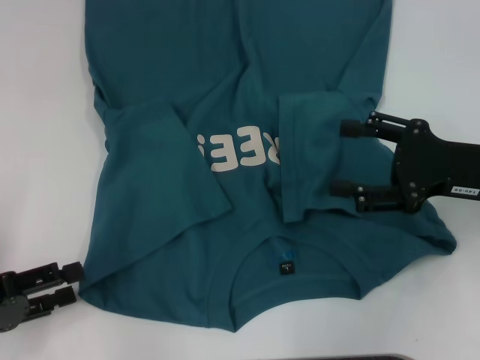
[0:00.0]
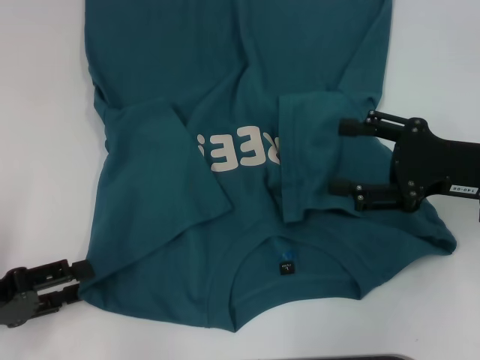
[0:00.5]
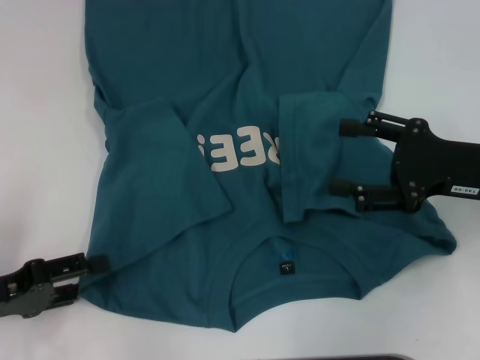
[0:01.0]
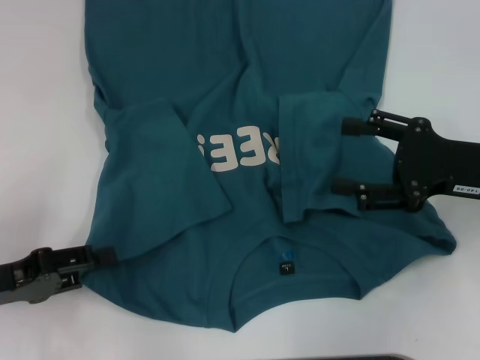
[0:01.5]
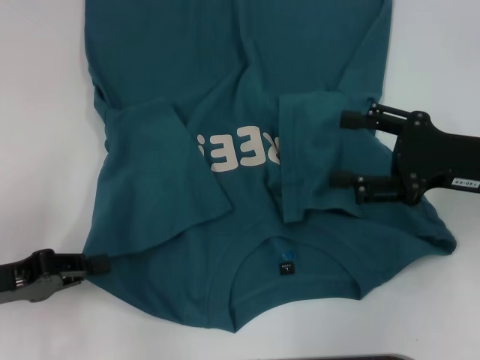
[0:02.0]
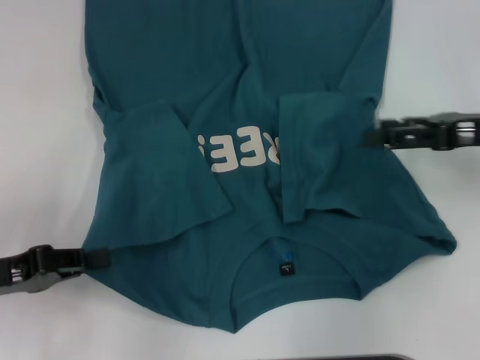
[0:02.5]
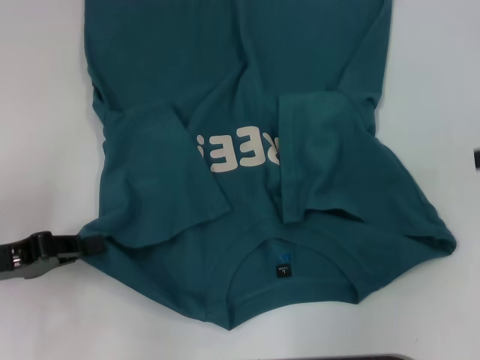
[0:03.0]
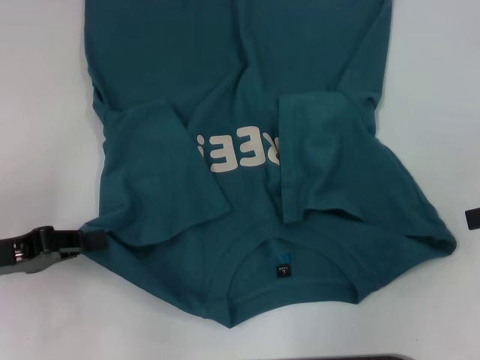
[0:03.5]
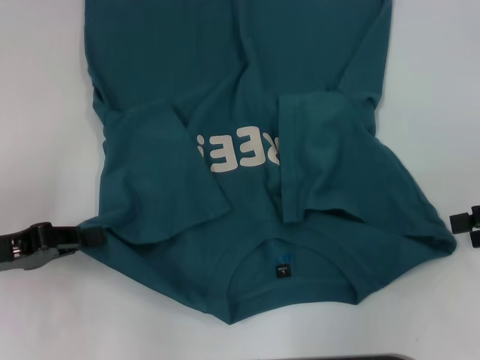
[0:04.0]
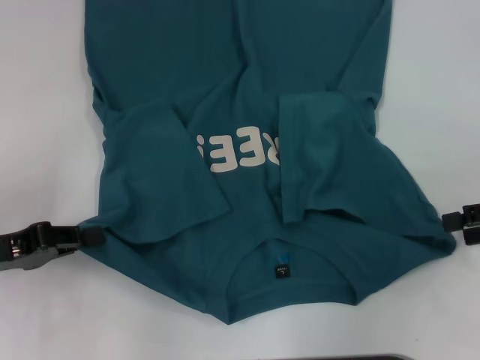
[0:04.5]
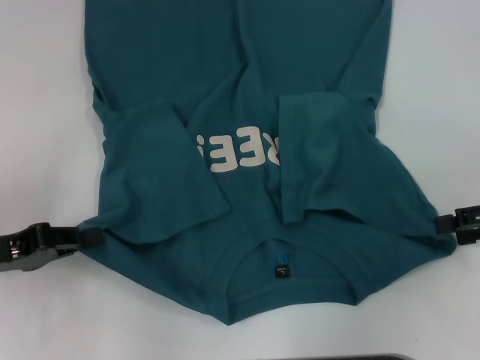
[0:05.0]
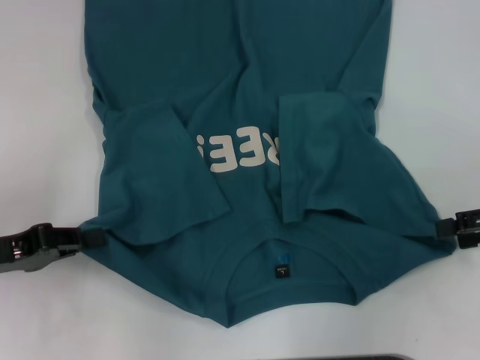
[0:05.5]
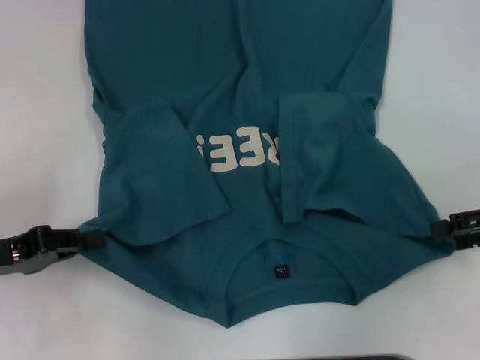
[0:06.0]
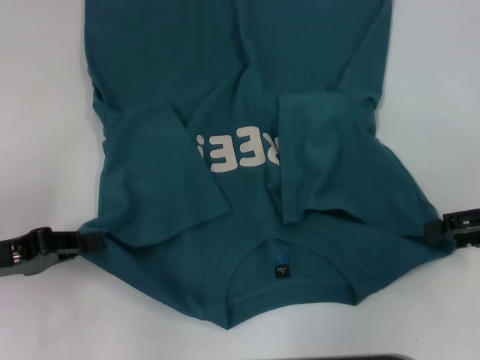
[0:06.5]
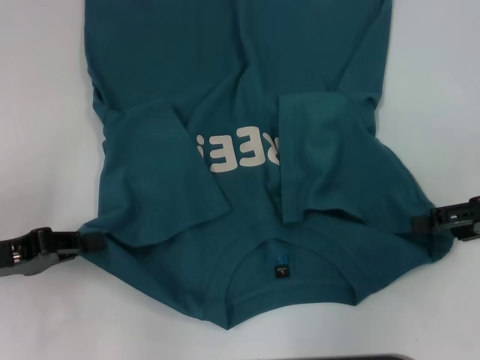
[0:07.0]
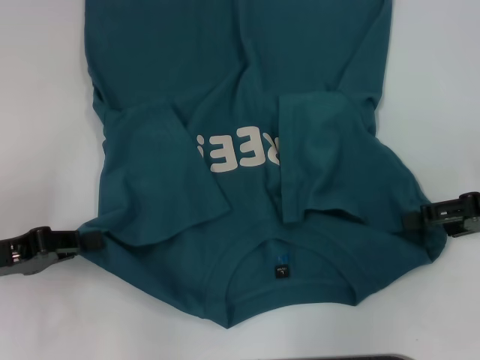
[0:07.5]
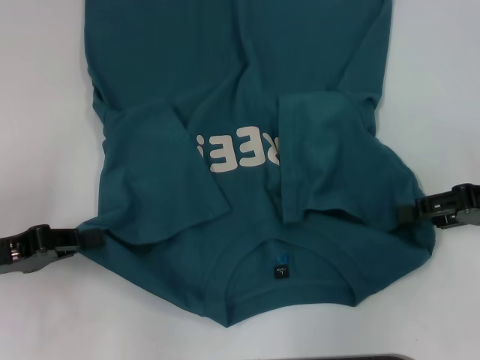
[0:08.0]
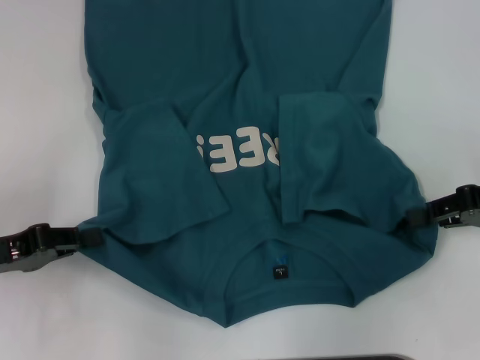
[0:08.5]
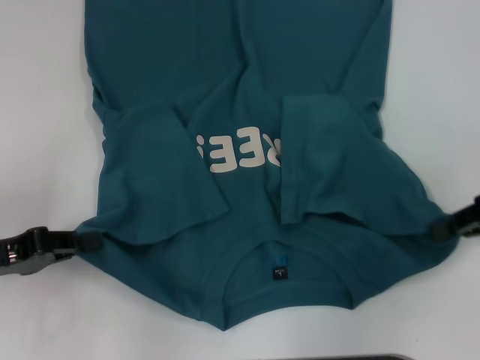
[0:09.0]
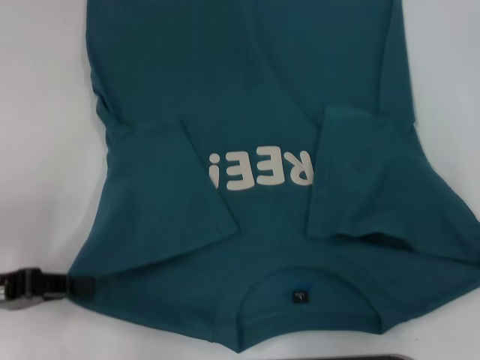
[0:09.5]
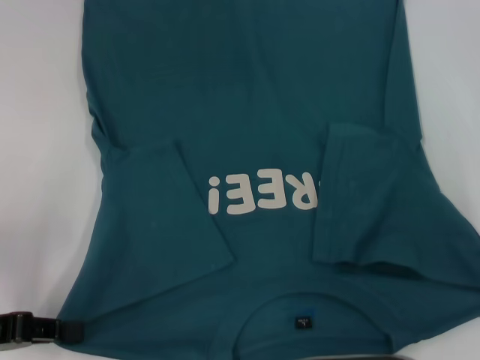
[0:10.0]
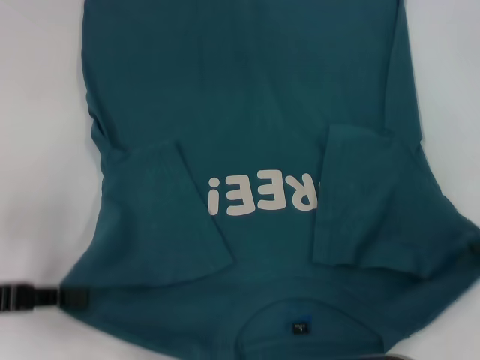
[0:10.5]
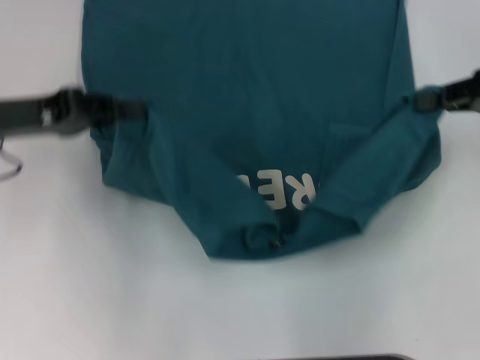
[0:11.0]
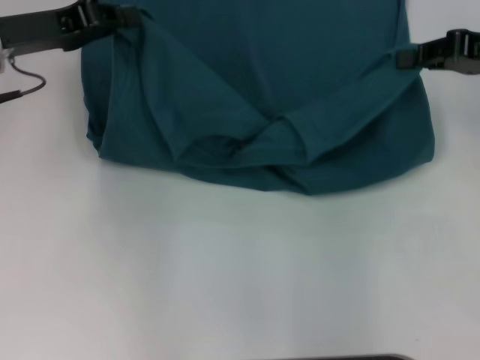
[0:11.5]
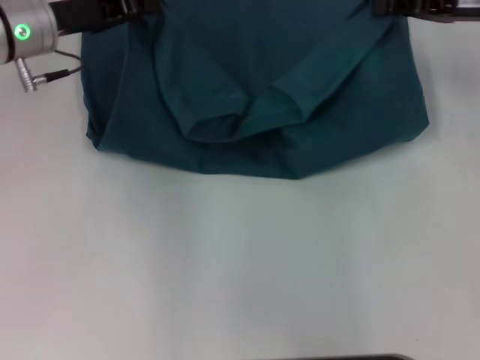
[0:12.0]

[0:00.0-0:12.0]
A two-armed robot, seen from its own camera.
Step, 0.0 to 2.0 s: Grab the bottom left corner with your left hand.
Step, 2.5 to 9.0 s: Grab the bottom right corner with your right hand.
0.0 to 2.0 s: The left gripper closes its fingers.
2.0 to 4.0 s: The right gripper goes roughly 10 cm to the right.
4.0 to 8.0 s: The grippers make only small movements.
8.0 to 10.0 s: The right gripper moves some 5 cm, and closes its fingers.
10.0 to 12.0 s: The right gripper is displaced forward and to the left by roughly 15 cm. Meanwhile the left gripper travels forward and to the right by about 25 cm.

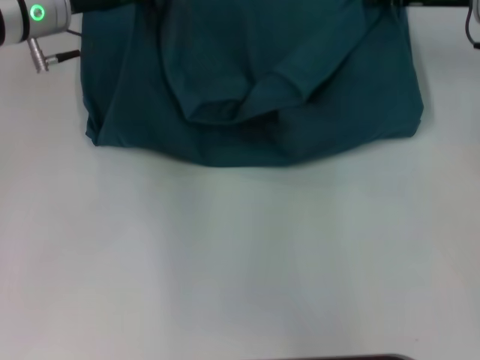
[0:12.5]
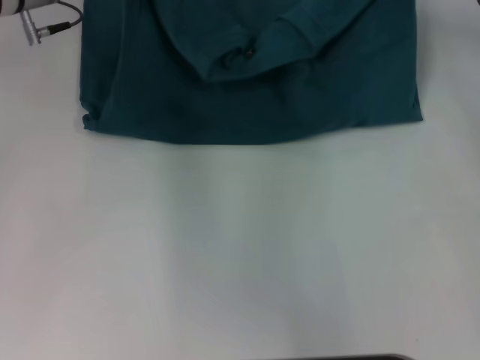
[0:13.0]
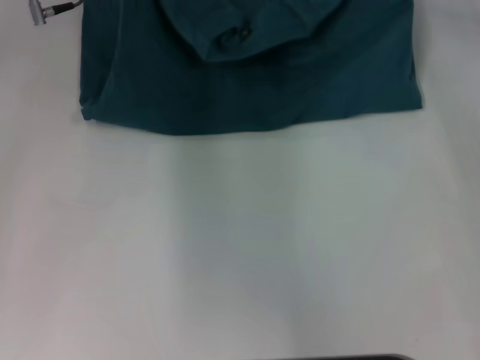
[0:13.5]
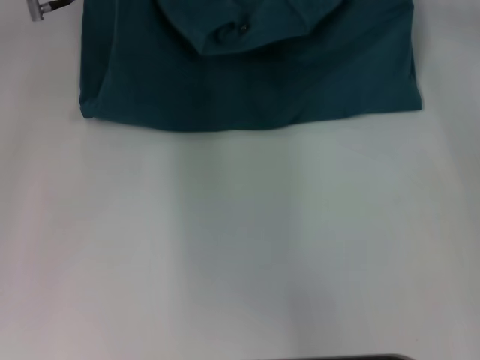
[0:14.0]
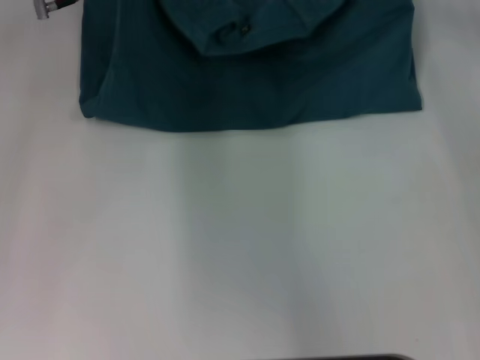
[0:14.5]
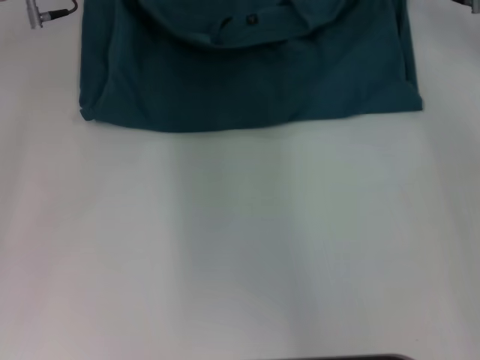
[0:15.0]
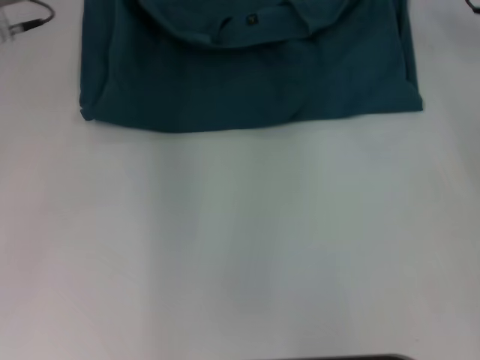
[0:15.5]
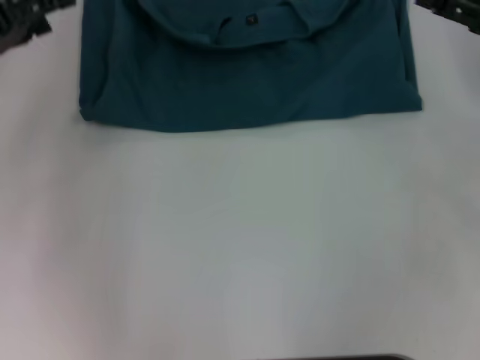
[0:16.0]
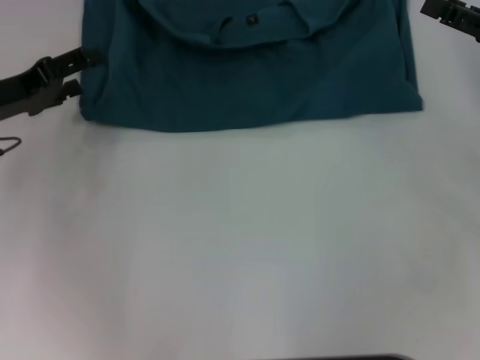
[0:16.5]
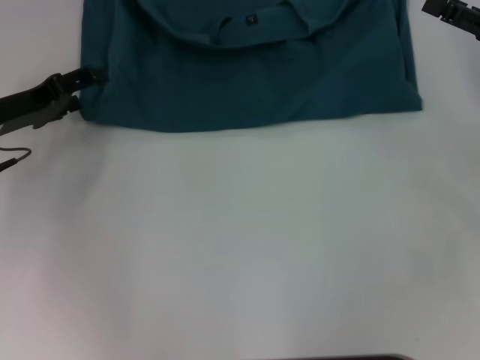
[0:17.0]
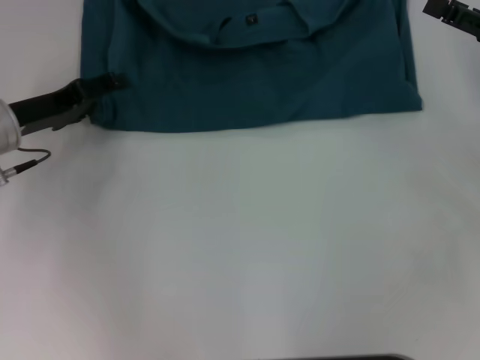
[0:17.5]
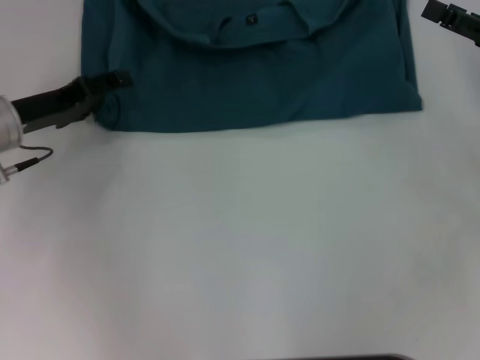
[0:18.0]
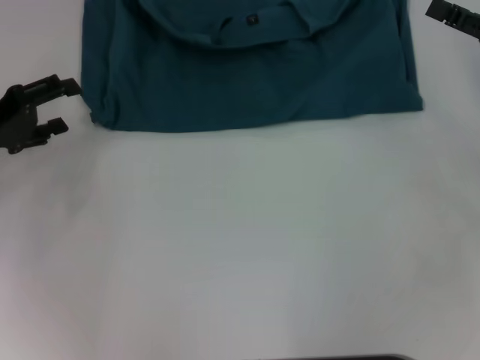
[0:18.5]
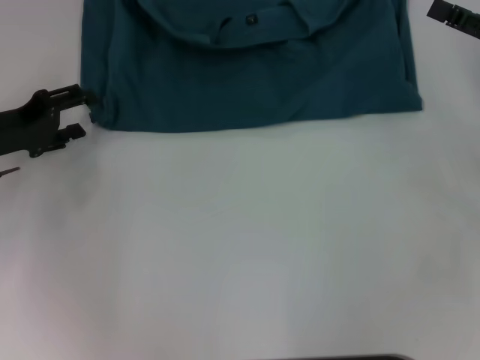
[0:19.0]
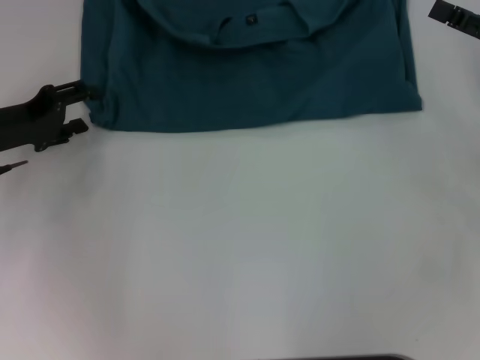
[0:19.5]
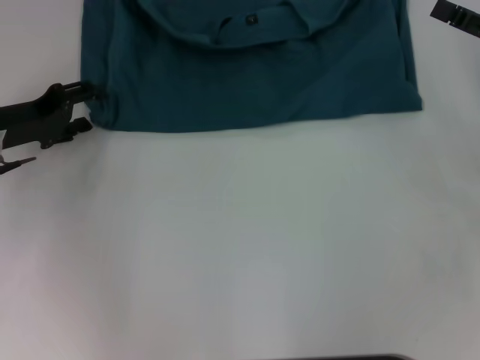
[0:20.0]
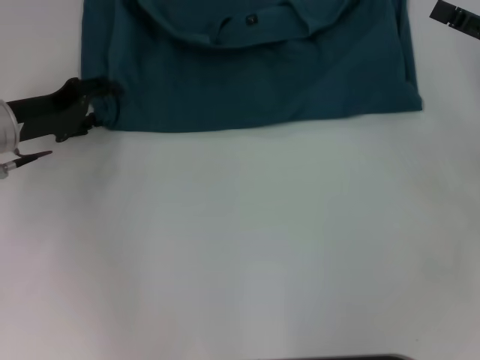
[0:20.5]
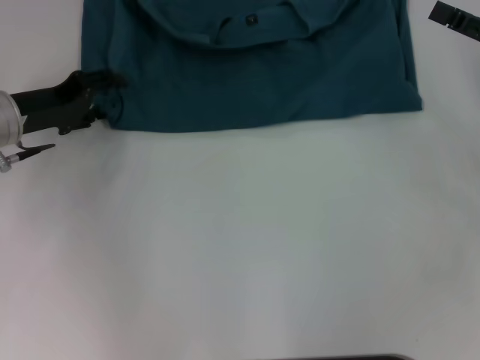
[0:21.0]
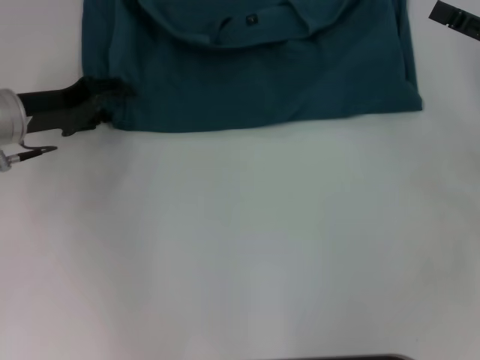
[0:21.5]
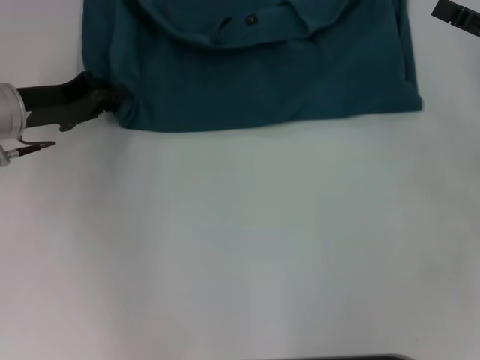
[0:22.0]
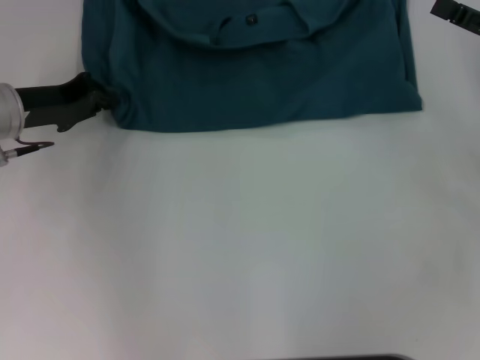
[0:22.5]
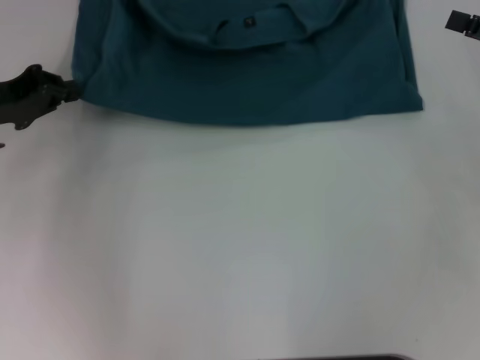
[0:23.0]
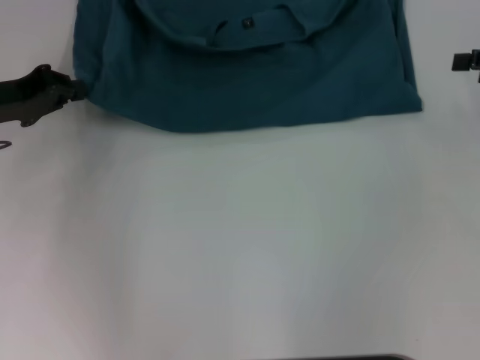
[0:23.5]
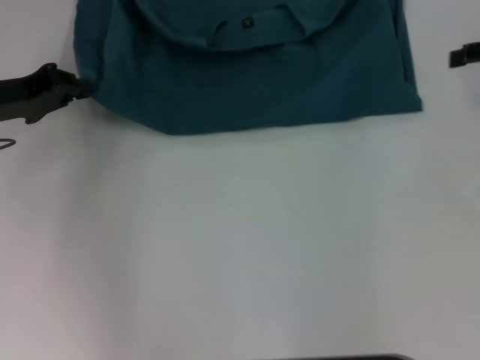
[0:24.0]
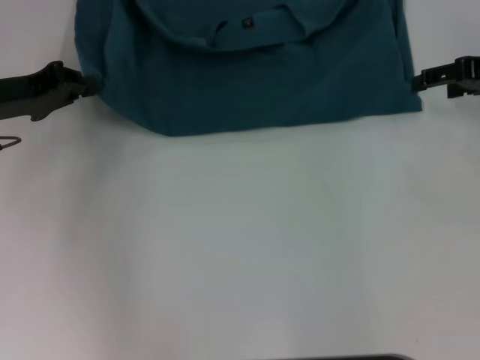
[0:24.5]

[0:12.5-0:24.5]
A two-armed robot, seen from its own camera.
Step, 12.5 to 15.5 s: Fold the clothes to the left.
Step, 12.5 to 15.5 s: Fold the clothes to the right.
14.5 to 16.5 s: The left gripper moves backward, to the left and downward, approximately 20 cm, and opens up. The right gripper moves backward and to the right, approximately 15 cm, and opens.
16.5 to 18.5 s: There are only small adjustments of the grippers.
18.5 to 20.5 s: The left gripper shifts by approximately 5 cm.
20.5 to 22.5 s: The left gripper closes its fingers.
22.5 to 24.5 s: The right gripper goes about 5 cm forward.

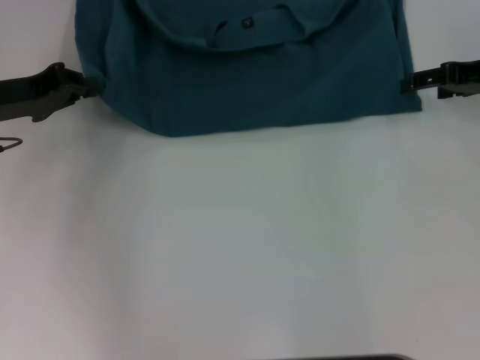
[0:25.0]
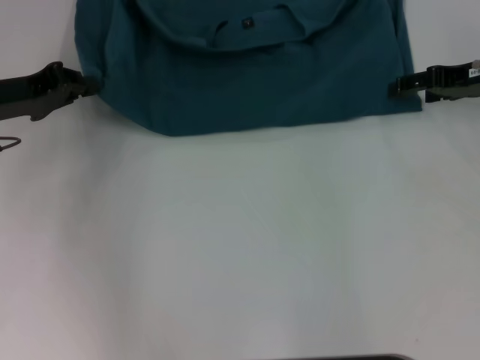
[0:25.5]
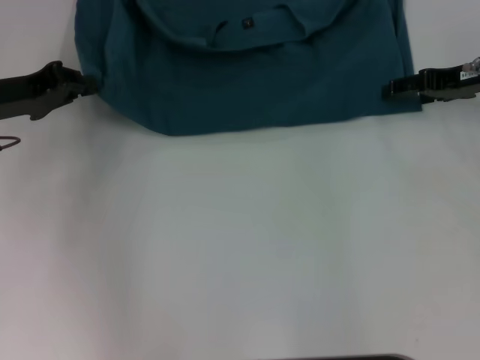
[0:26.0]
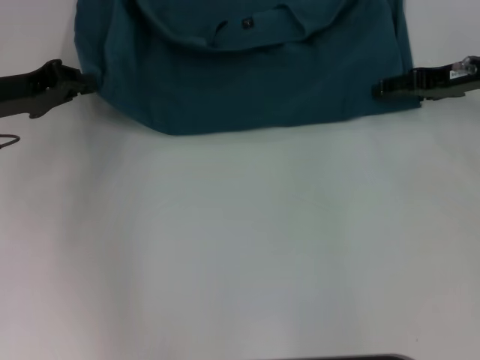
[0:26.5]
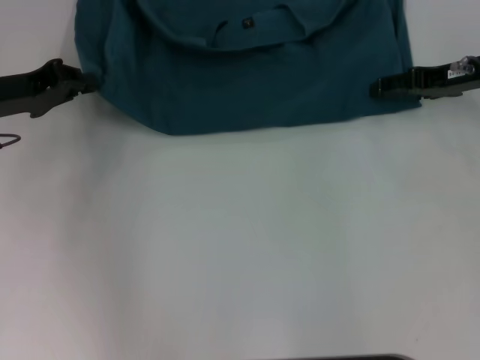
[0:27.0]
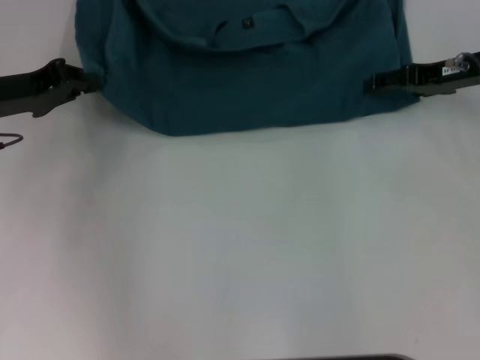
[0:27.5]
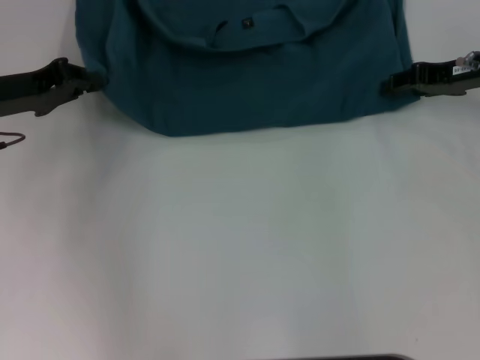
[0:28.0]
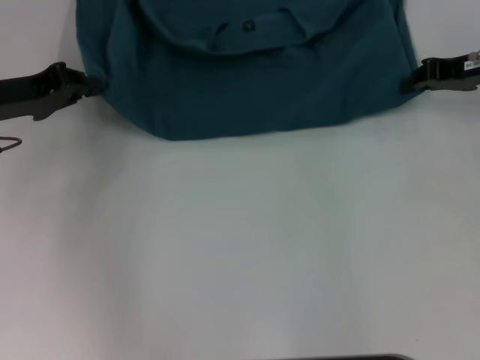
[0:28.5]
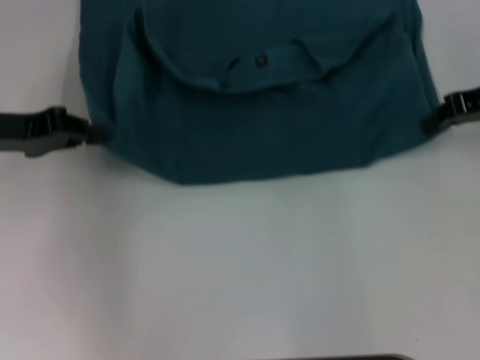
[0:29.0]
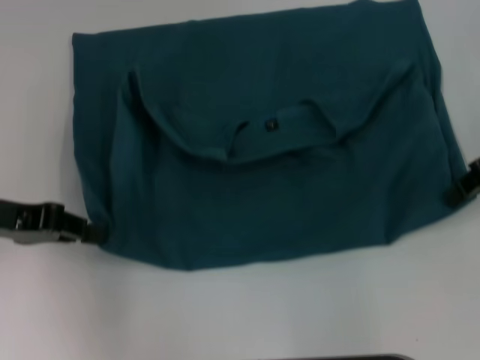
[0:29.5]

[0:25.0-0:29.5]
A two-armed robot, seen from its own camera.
25.0 to 27.0 s: The grippers make only small movements.
27.0 to 29.5 s: The two grippers go some 5 cm backward. The right gripper closes.
